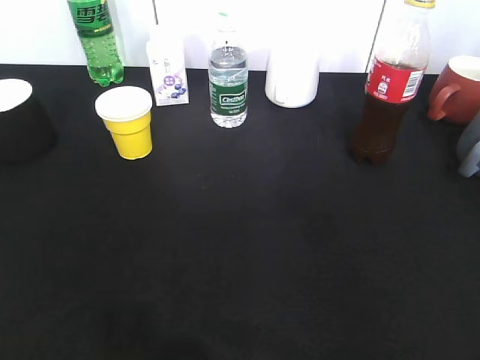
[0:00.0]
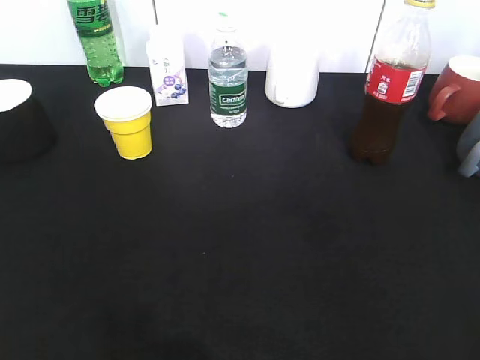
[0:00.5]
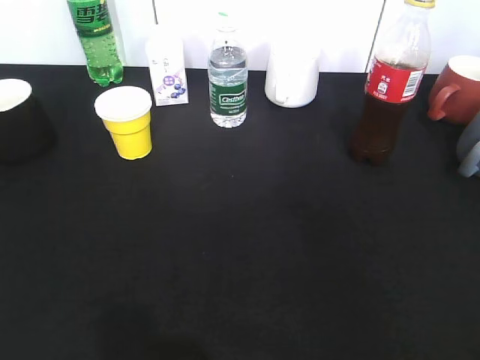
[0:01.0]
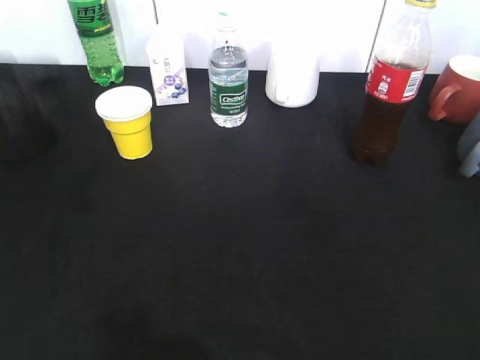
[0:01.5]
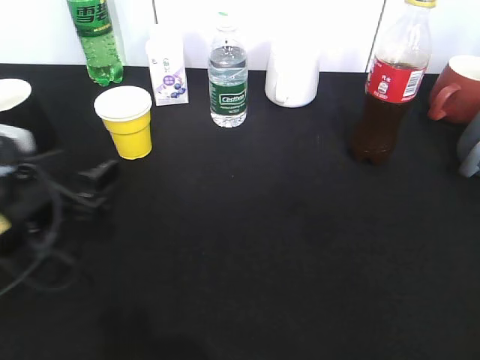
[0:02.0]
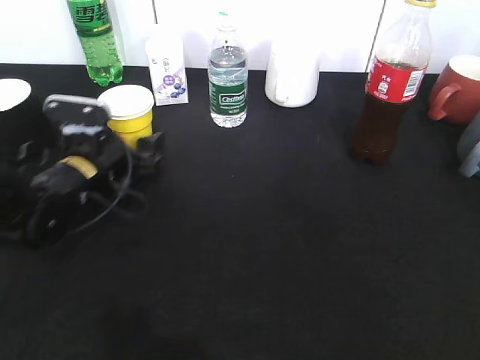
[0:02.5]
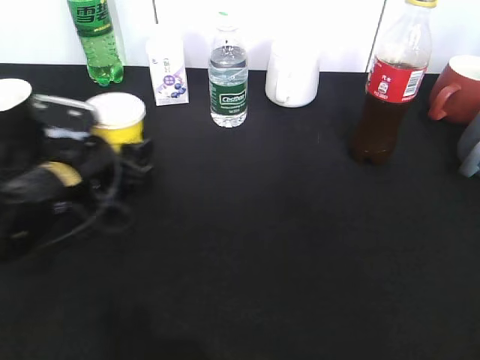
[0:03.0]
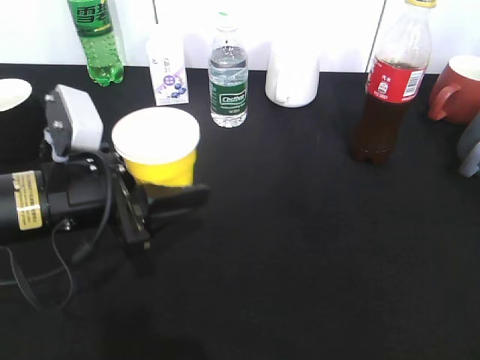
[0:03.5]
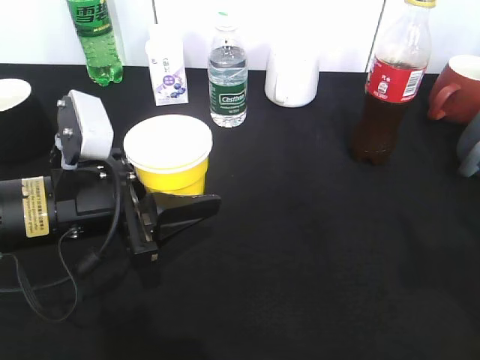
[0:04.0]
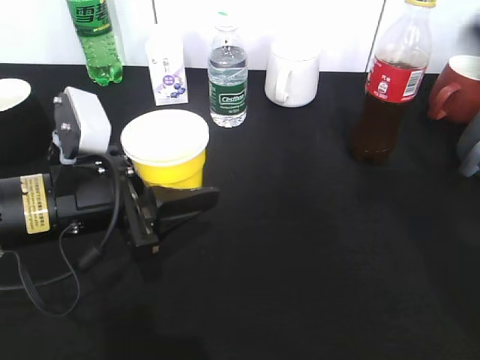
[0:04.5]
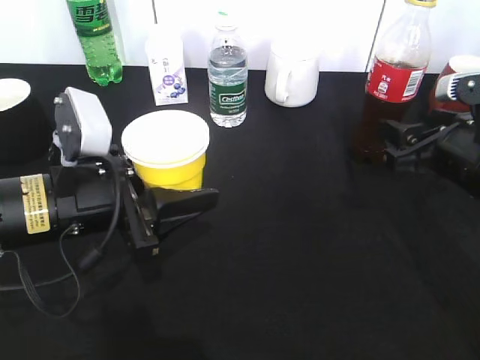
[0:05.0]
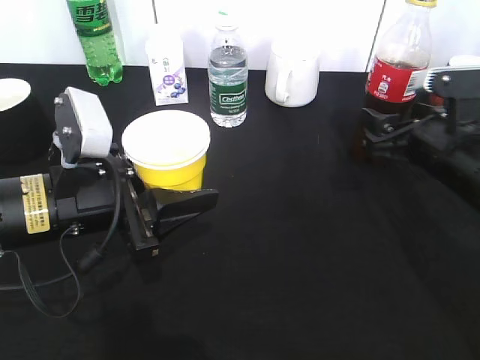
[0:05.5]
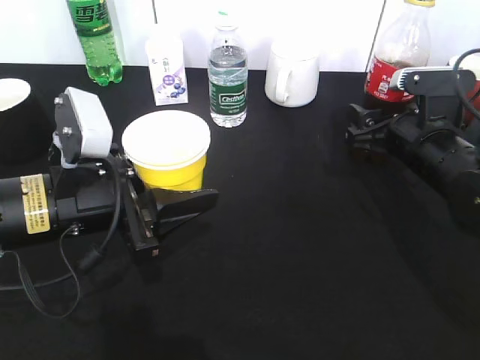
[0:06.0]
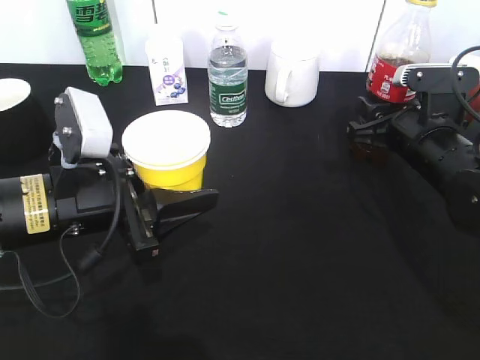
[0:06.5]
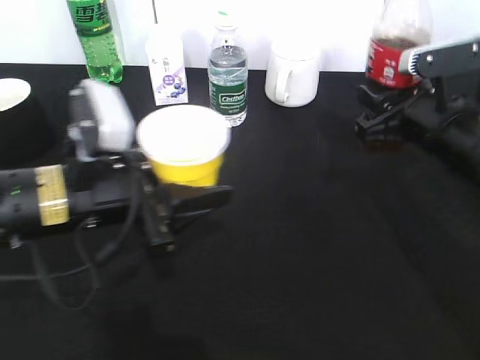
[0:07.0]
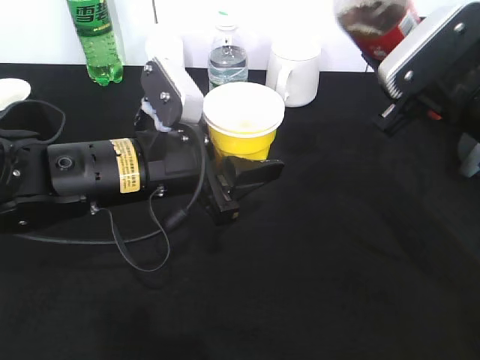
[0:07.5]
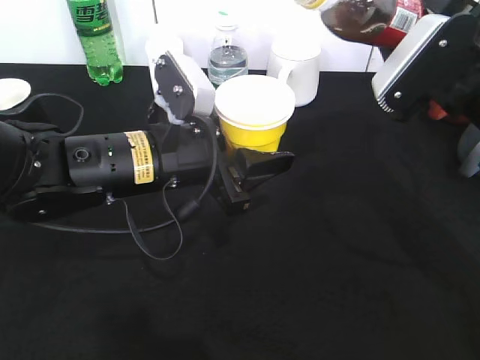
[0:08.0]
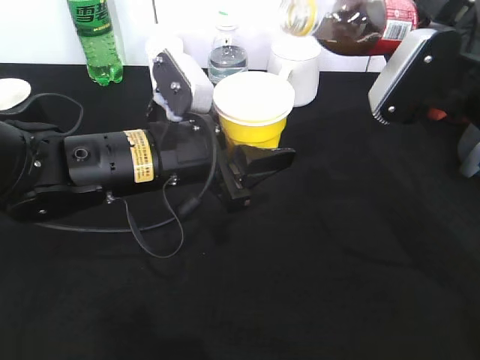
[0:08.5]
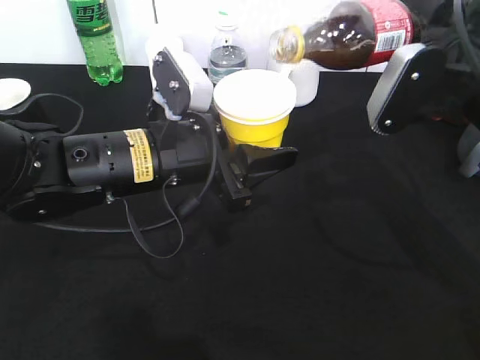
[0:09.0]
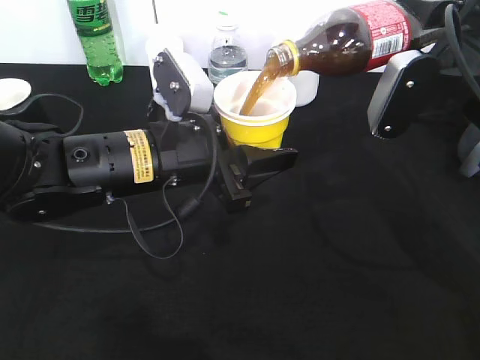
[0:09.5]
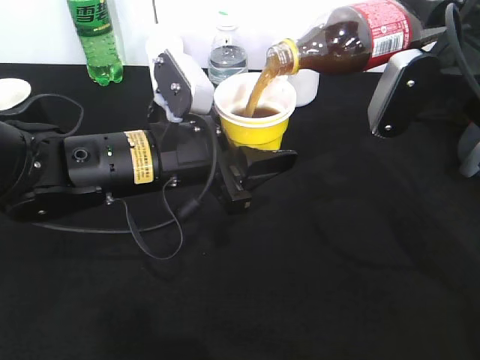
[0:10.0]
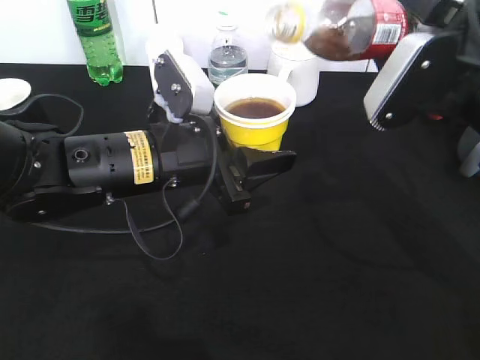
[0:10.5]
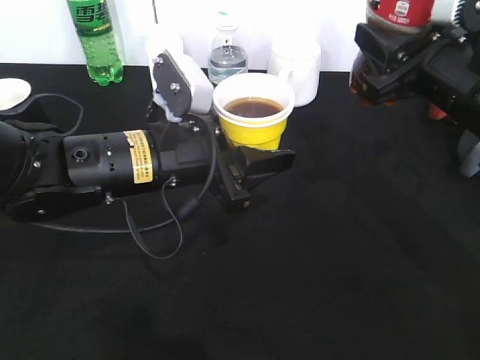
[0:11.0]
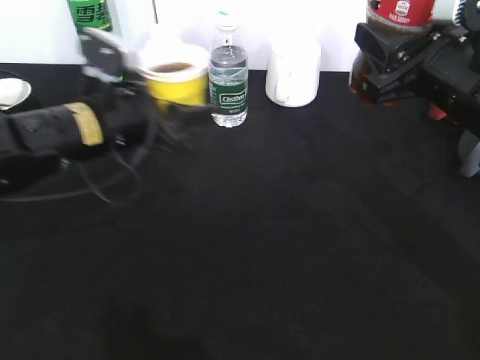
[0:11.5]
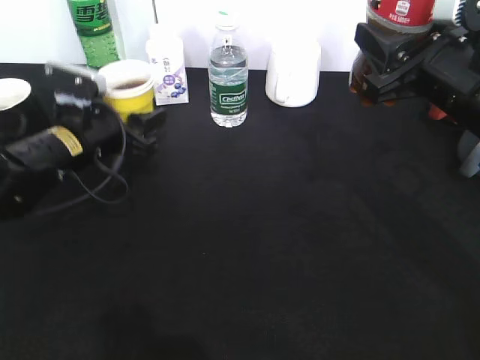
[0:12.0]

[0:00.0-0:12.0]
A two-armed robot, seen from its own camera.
Step, 0:00.0 to 0:02.5: Grasp the yellow paper cup with left gripper.
Step, 0:03.0 to 0:03.5: Lift the yellow paper cup with left gripper.
Step, 0:04.0 to 0:06.5: Grasp the bottle with cola with right gripper.
Step, 0:07.0 to 0:10.0: Pour the cola from bottle to cup with right gripper.
0:00.0 to 0:02.0: The left gripper moves forward, downward and to the right, some 30 cm, and opens up.
0:02.0 to 0:04.0: The right gripper travels forward and upward by about 10 cm, while the left gripper shifts roughly 5 cm to the right, goes forward and returns, some 10 cm each way, and closes its fingers.
0:04.0 to 0:06.0: The right gripper heads forward and downward, covering about 30 cm.
0:06.0 to 0:08.0: The right gripper moves upward, some 10 cm, and closes. The left gripper is displaced to the right by approximately 10 cm.
0:10.0 to 0:12.0: The left gripper is displaced to the left, forward and downward by approximately 15 cm.

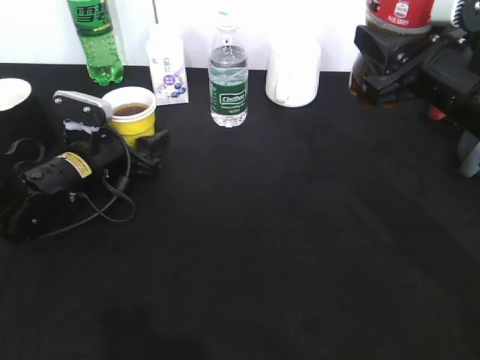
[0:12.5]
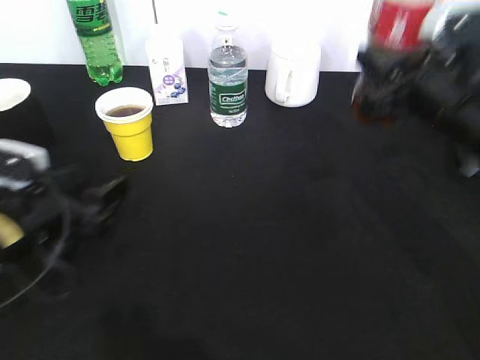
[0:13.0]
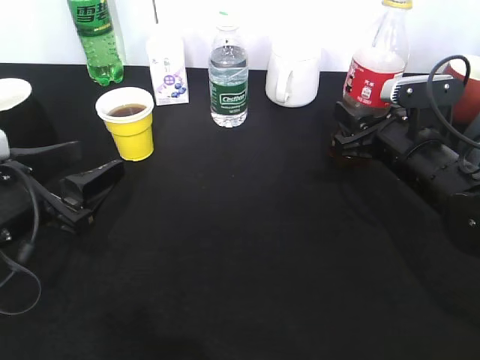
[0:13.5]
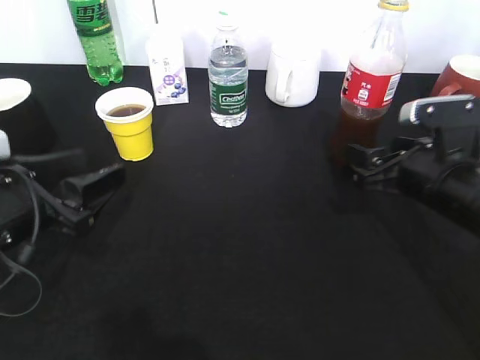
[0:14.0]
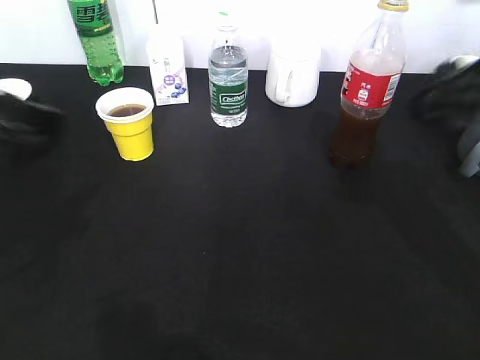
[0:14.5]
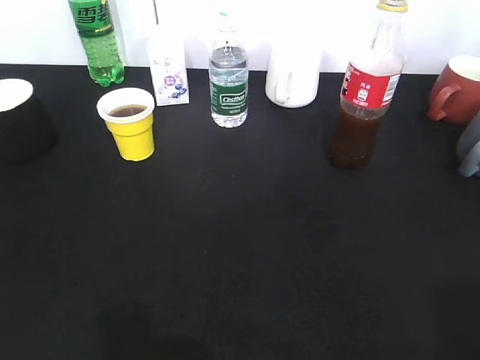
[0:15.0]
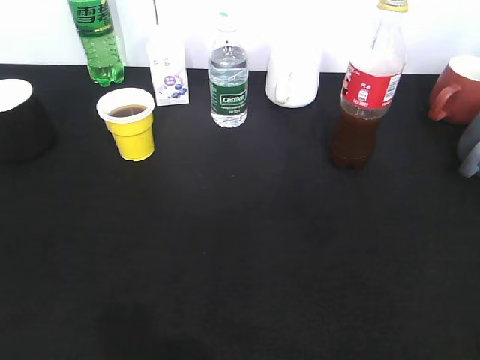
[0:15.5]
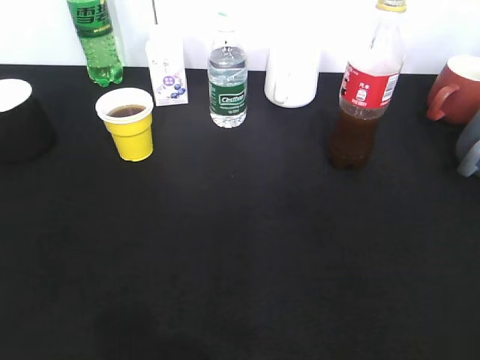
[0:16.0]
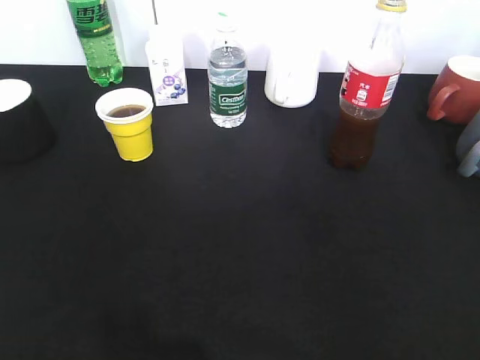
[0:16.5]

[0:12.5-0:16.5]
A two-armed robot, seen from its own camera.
Step, 0:13.0 to 0:14.0: Place the cola bottle on the table with right gripper.
0:12.5 to 0:14.5: The left gripper is displaced upward and backward by about 25 cm; the right gripper is displaced upward by about 5 cm, and opens up.
0:14.5 to 0:16.5: The right gripper is displaced backward by about 25 cm, and closes. Meanwhile the left gripper travels backward and to the left by roughly 20 cm, and closes.

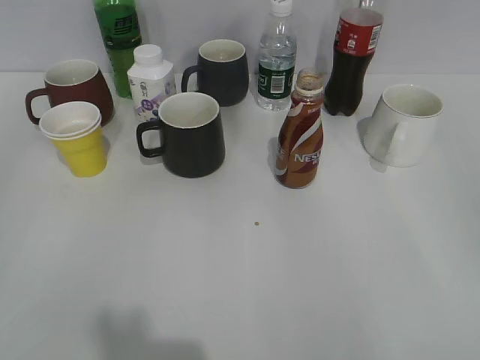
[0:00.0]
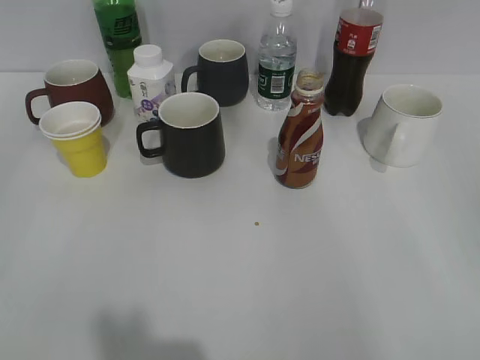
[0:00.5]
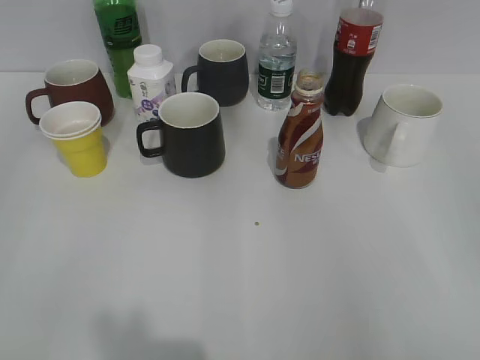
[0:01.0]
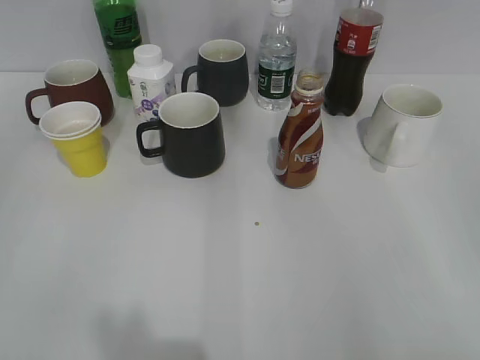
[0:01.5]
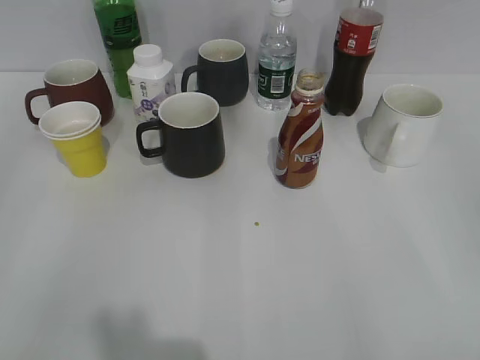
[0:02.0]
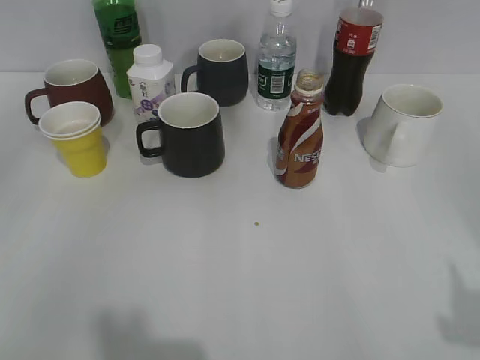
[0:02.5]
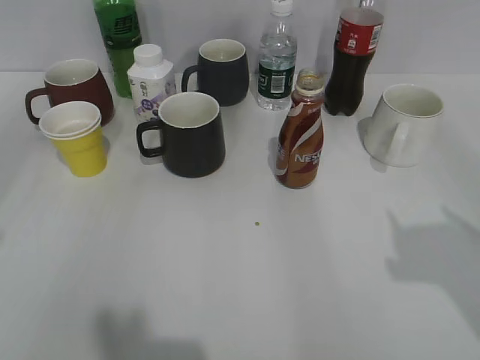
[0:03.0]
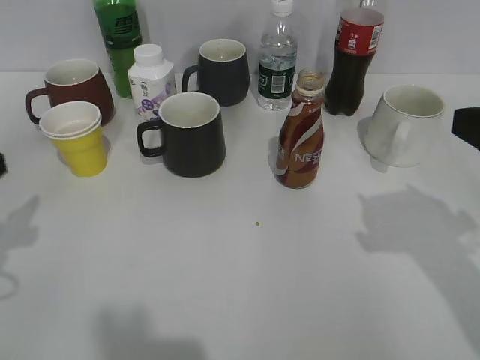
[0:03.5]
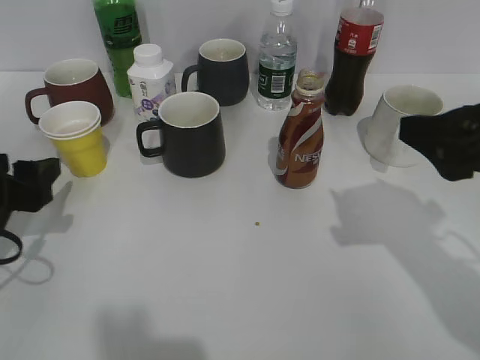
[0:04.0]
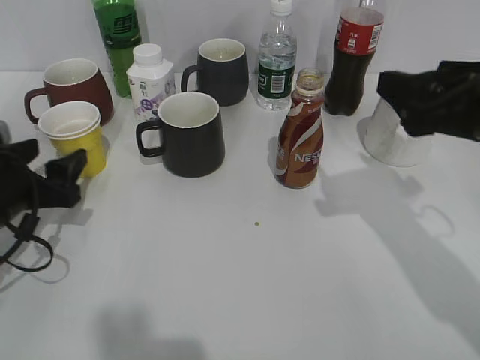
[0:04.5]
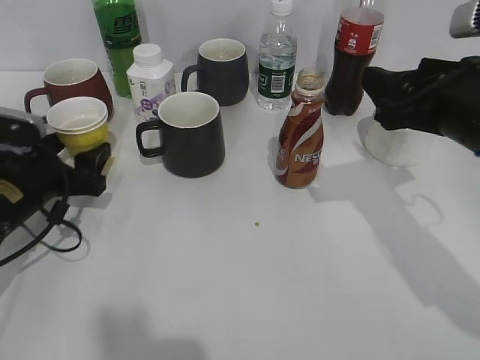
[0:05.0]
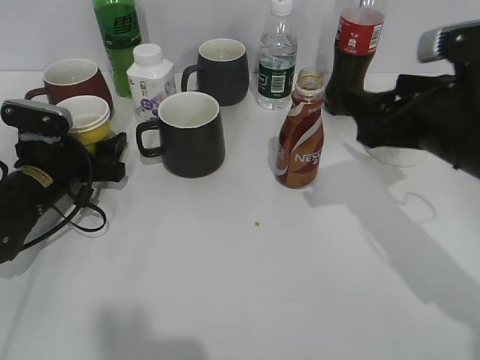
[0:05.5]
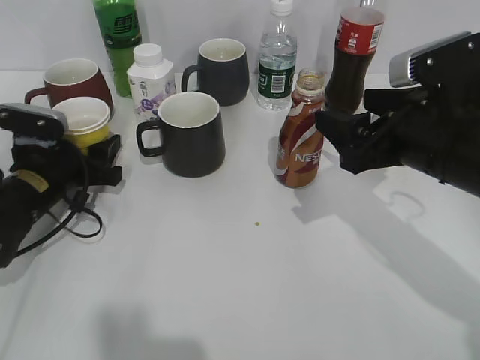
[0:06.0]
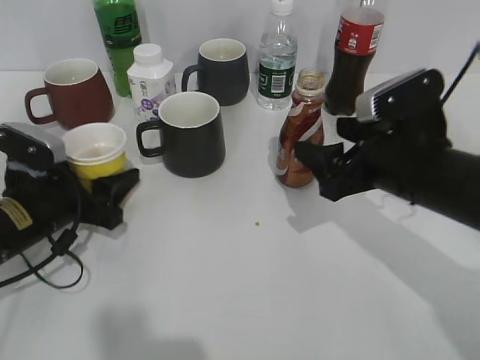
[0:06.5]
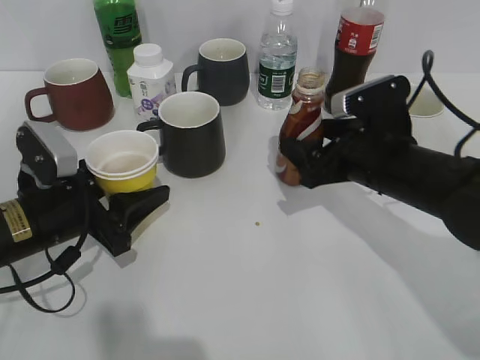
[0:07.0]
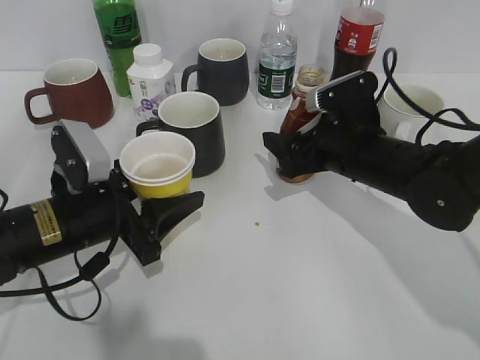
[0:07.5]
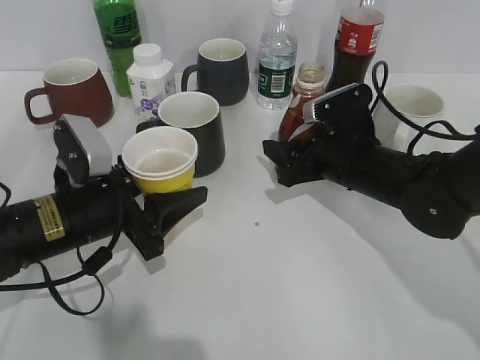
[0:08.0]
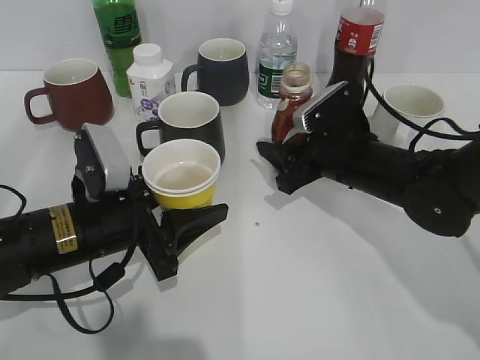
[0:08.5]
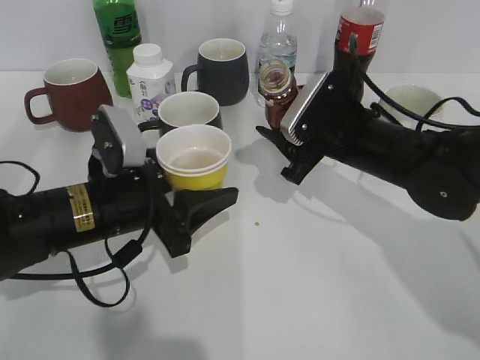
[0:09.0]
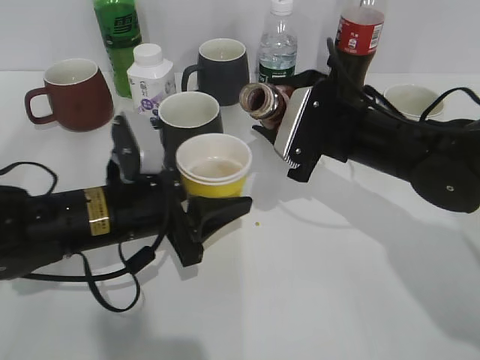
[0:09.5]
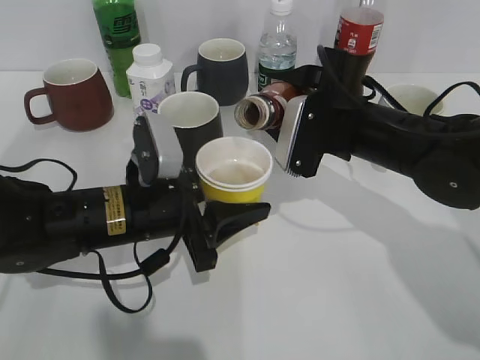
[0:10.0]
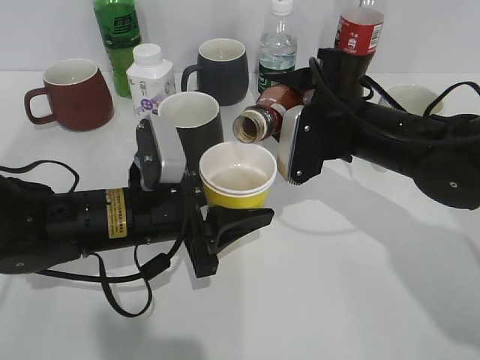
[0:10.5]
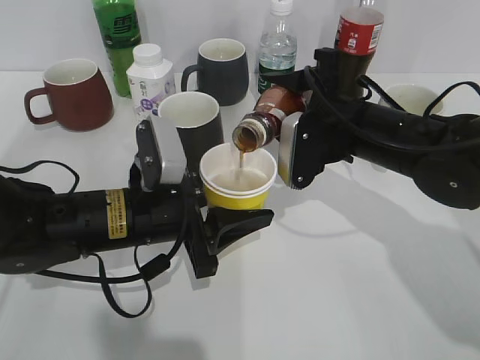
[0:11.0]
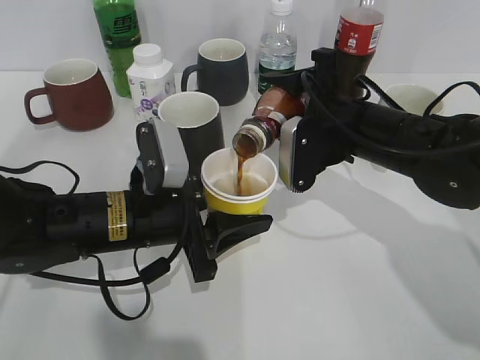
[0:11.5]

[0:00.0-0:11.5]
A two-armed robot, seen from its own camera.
Step, 0:00.0 to 0:05.5: Grasp the yellow paper cup with left gripper.
Step, 0:06.0 to 0:07.5: Grasp the bottle with coffee with right gripper.
0:02.0 to 0:04.0: The right gripper is displaced forward and to the left by approximately 20 cm. The left gripper shifts approximately 25 cm forward and downward, and opens its fingers.
0:04.0 to 0:06.0: The grippers both shift forward and downward by roughly 10 cm.
0:06.0 to 0:07.5: The left gripper shifts approximately 10 cm backward and to the right. Meanwhile the right gripper goes about 10 cm downward and forward.
0:07.5 to 0:09.5: The right gripper closes its fingers.
